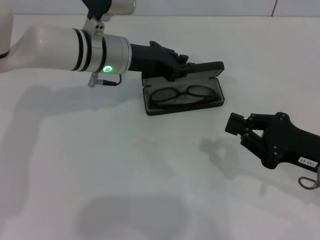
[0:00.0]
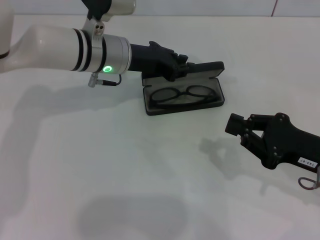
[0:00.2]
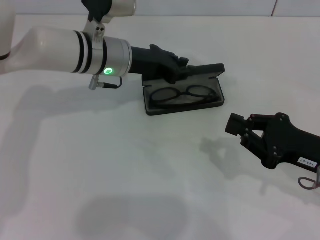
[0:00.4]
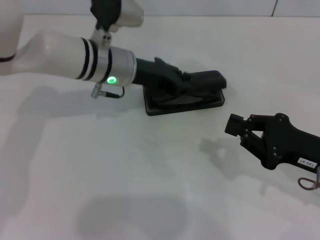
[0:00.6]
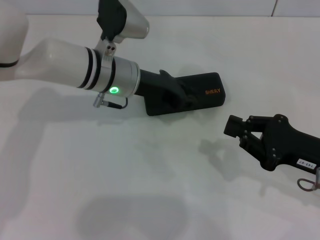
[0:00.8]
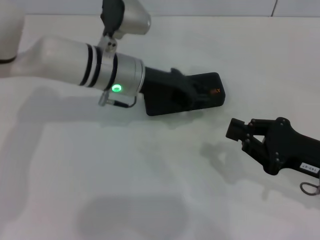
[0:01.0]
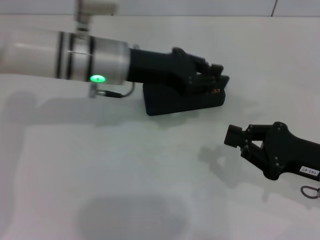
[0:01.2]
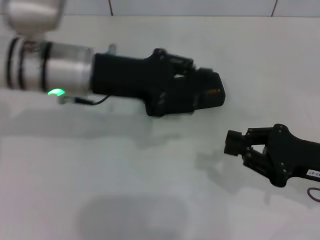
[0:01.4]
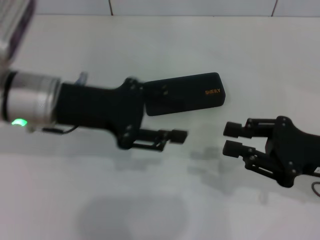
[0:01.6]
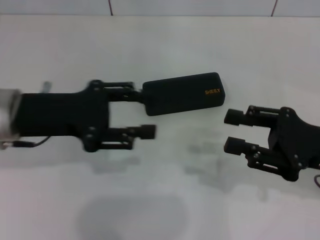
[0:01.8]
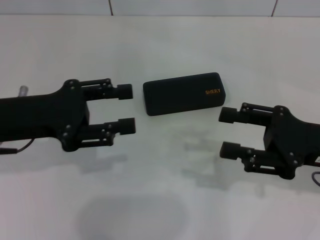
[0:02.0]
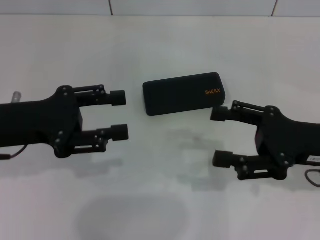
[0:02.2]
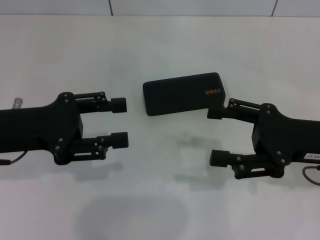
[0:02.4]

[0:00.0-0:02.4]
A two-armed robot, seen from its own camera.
0:00.0 to 0:01.2: The left gripper changes place by approximately 5 cm.
0:01.2 to 0:02.4: The right gripper moves upward, roughly 5 cm, and opens. The left gripper is displaced to the left and backward by about 20 cm, and opens up.
